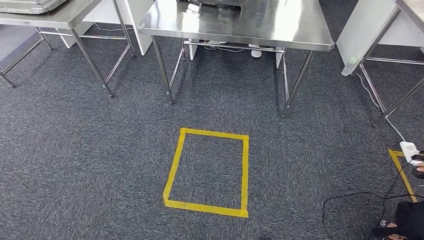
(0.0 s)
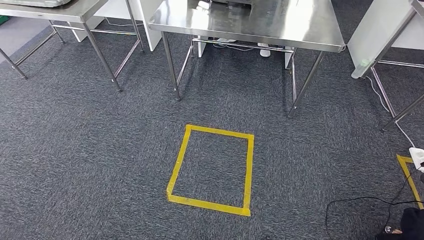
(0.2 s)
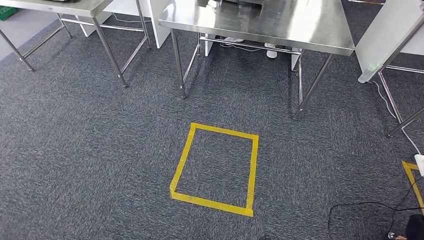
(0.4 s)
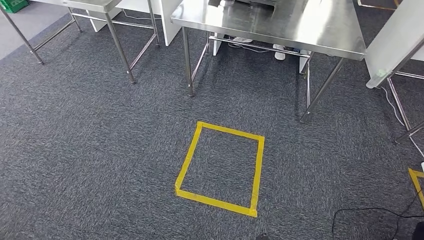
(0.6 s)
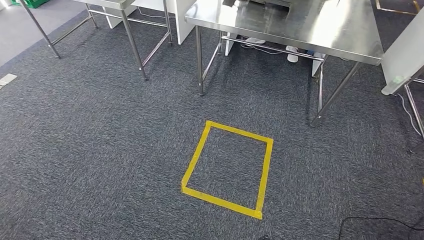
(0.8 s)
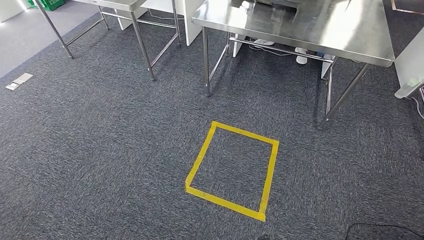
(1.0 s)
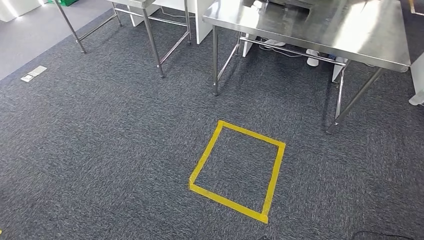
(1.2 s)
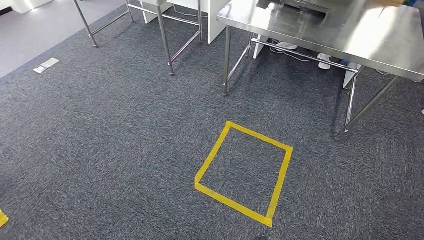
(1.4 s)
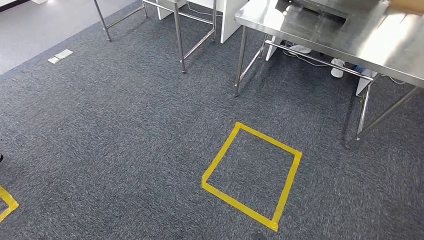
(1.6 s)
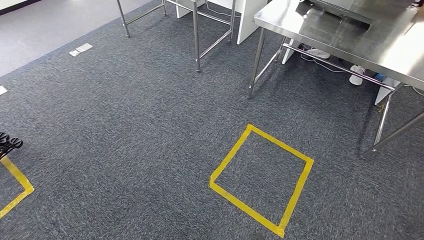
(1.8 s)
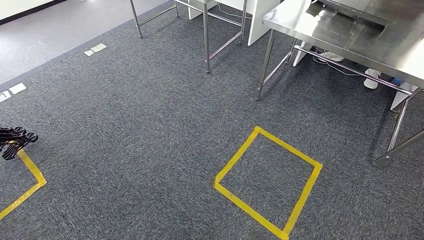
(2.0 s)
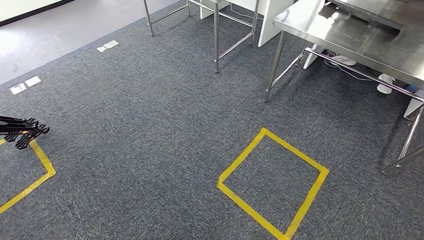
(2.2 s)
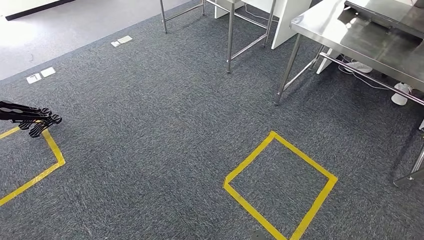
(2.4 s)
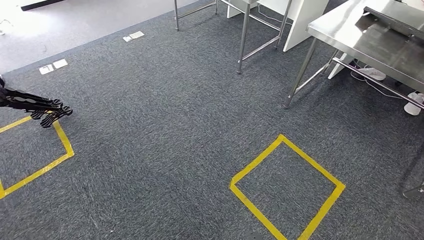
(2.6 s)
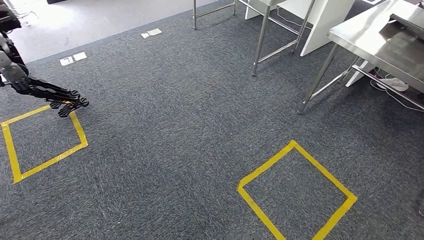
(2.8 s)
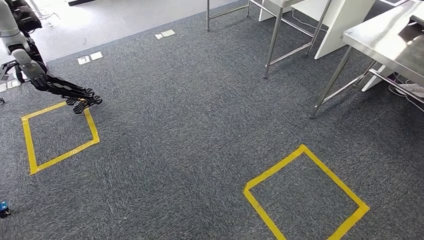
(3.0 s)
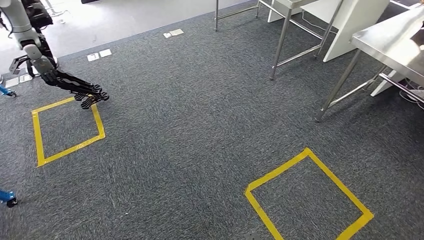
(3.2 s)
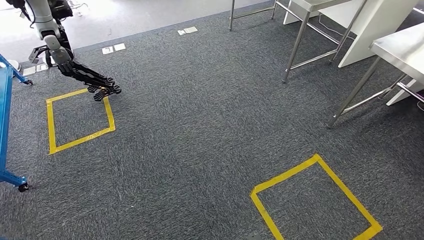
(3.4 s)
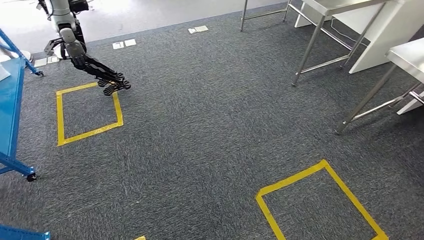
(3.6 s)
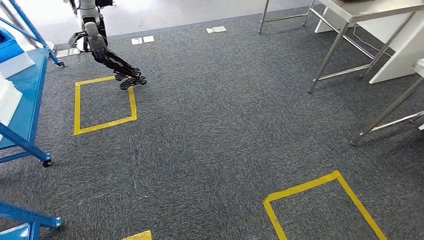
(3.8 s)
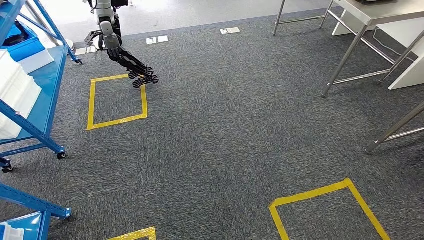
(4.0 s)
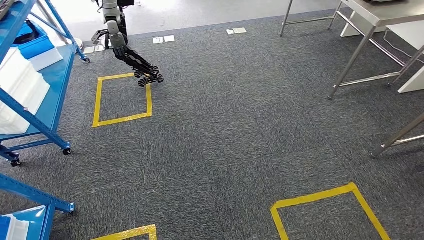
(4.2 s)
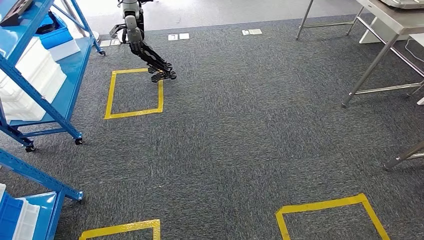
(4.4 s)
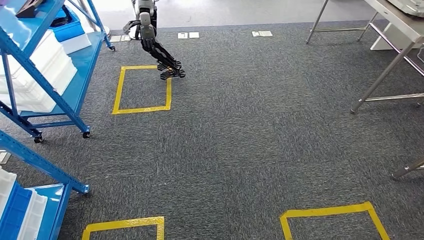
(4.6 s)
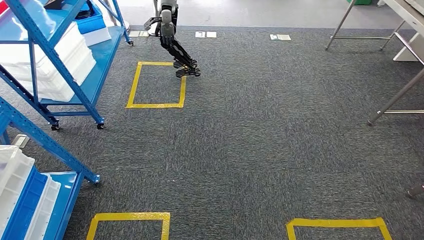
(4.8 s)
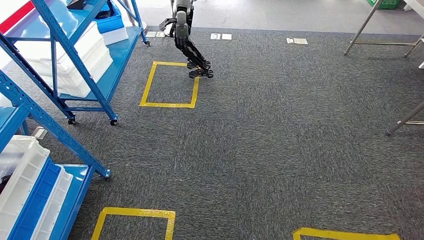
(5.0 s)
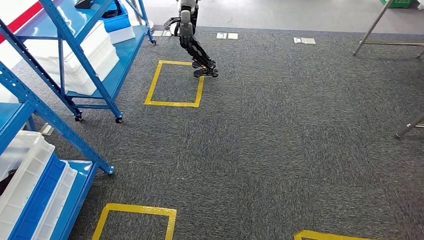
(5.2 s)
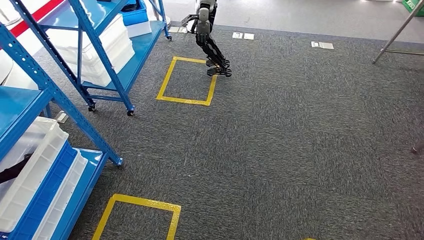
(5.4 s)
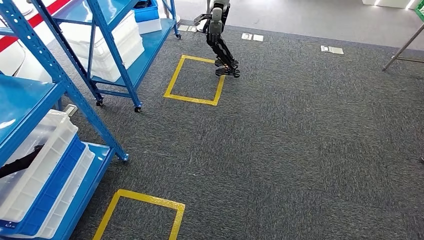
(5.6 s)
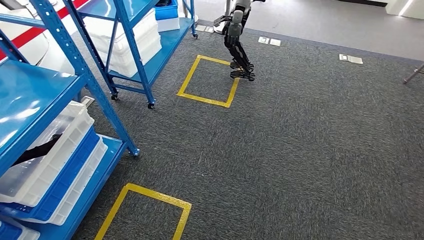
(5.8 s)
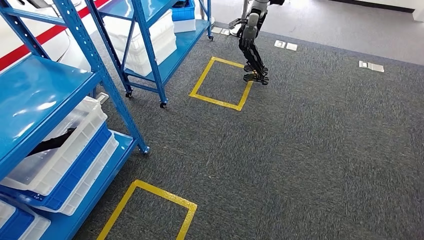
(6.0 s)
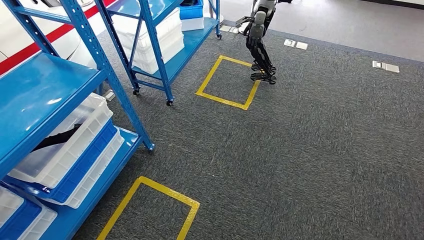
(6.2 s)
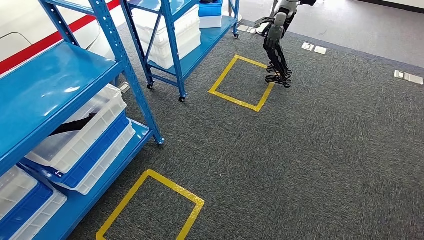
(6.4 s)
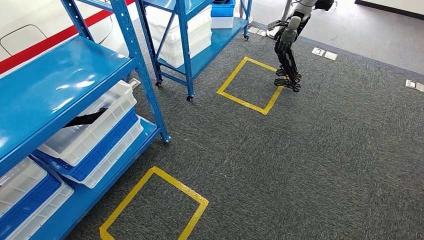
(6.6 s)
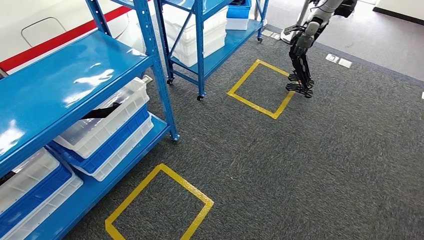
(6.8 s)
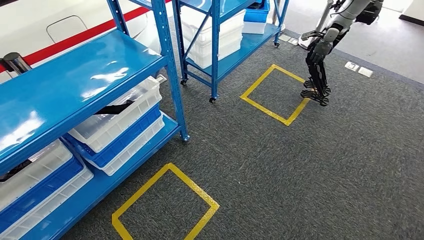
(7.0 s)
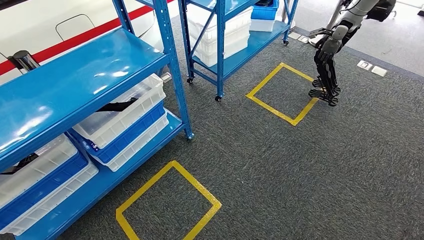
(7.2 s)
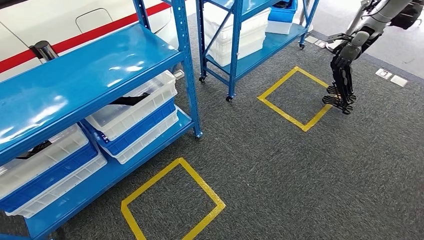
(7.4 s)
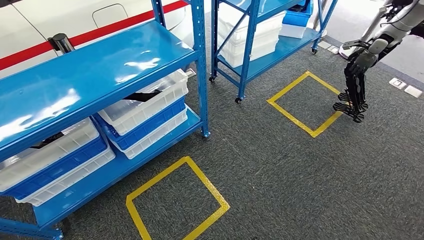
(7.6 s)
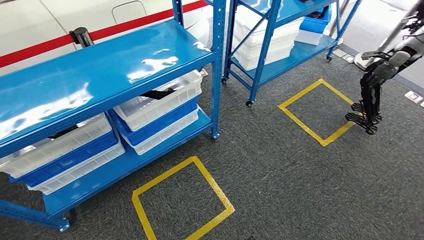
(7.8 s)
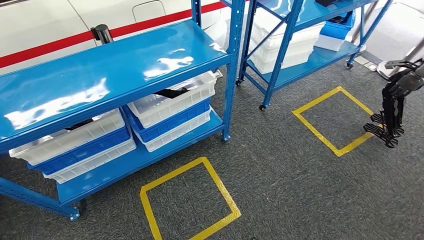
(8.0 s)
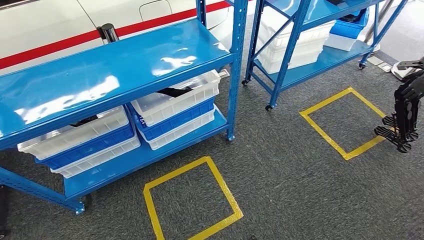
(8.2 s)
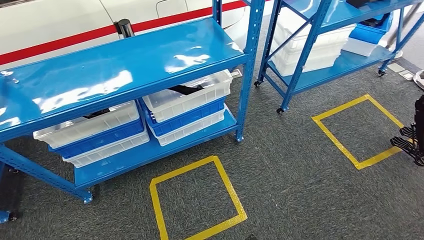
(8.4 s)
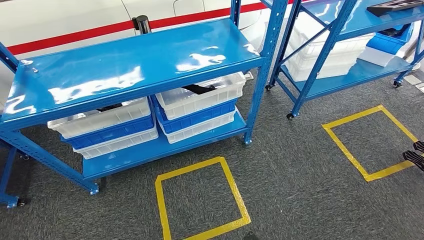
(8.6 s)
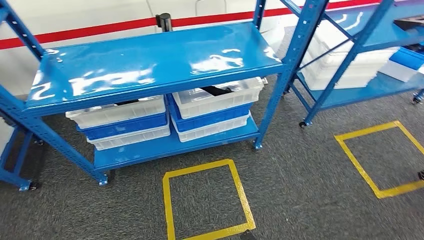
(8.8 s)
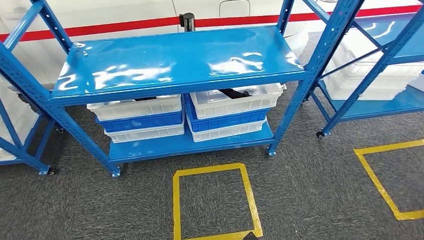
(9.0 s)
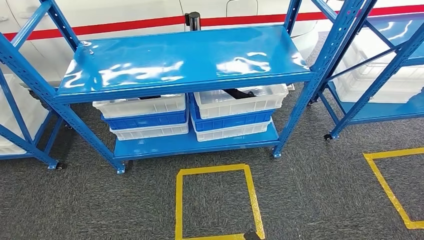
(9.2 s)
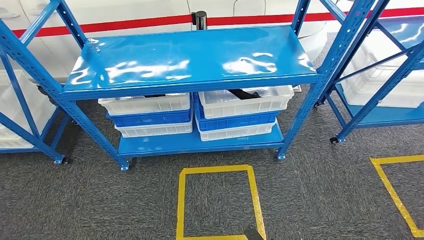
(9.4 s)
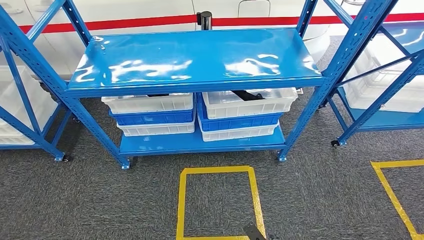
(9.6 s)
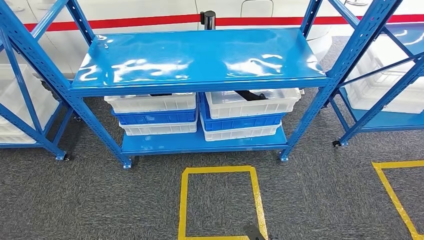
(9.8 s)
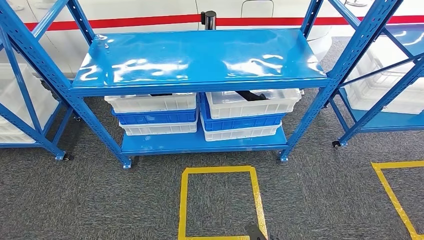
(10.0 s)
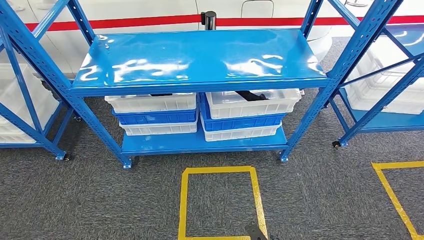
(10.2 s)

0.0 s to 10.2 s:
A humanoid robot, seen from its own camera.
Step, 0.0 to 10.2 s: Move to the initial position of the shelf.
